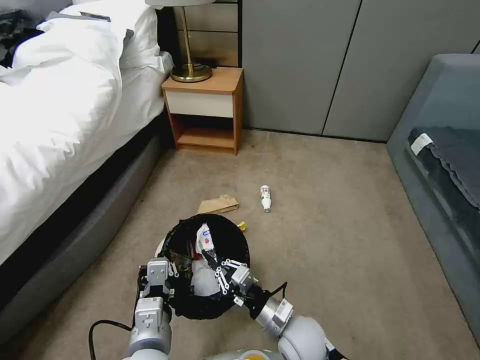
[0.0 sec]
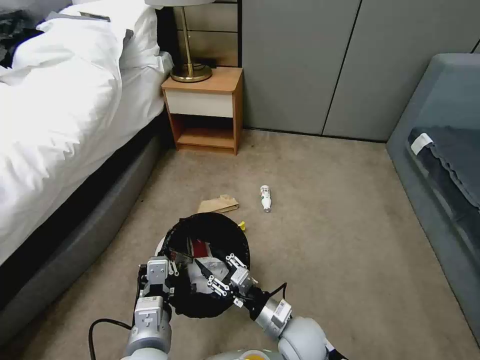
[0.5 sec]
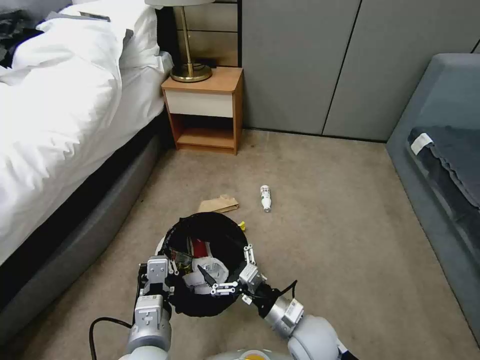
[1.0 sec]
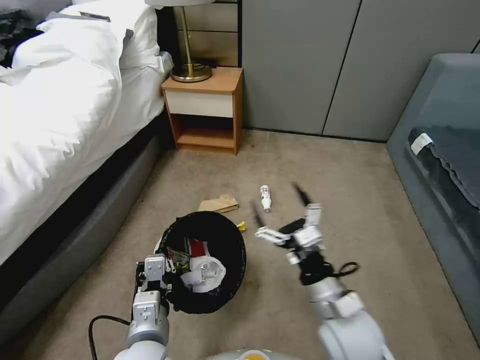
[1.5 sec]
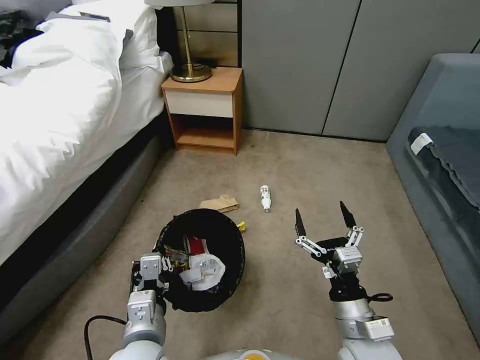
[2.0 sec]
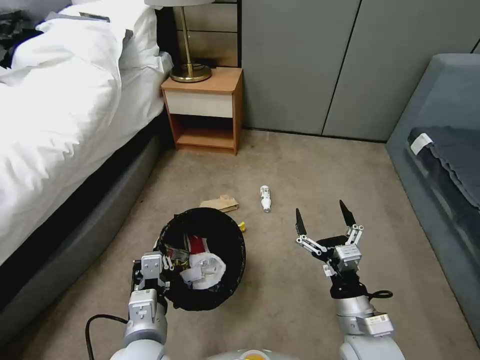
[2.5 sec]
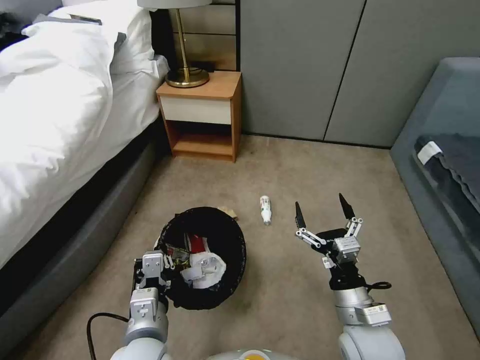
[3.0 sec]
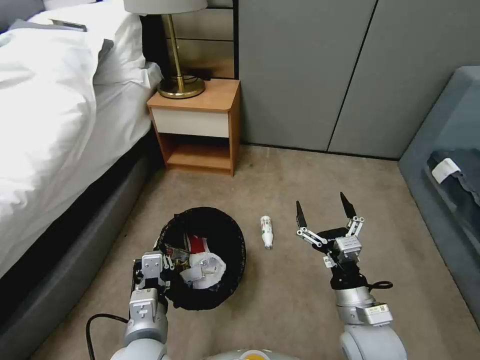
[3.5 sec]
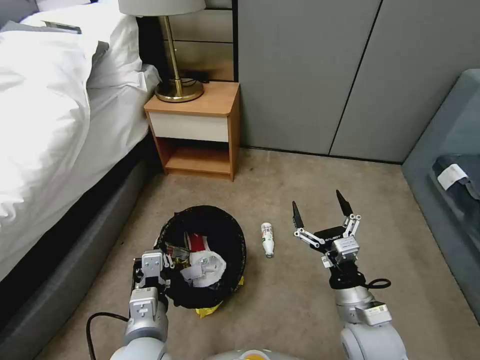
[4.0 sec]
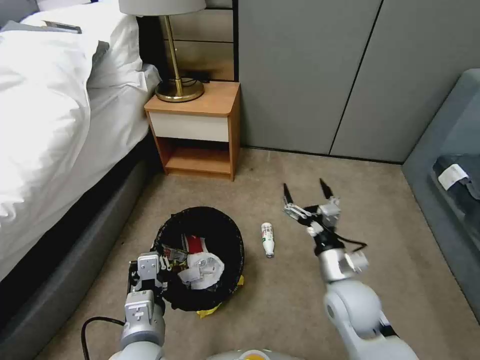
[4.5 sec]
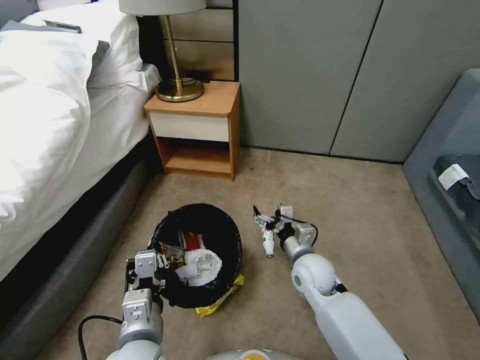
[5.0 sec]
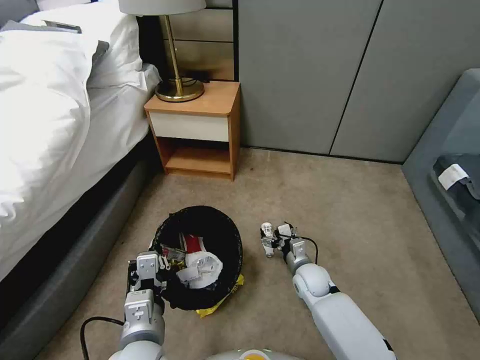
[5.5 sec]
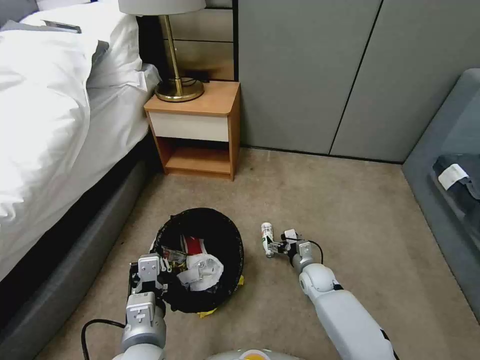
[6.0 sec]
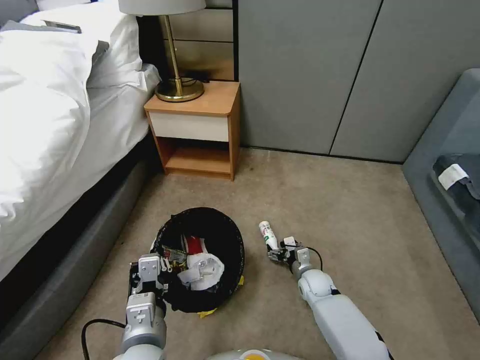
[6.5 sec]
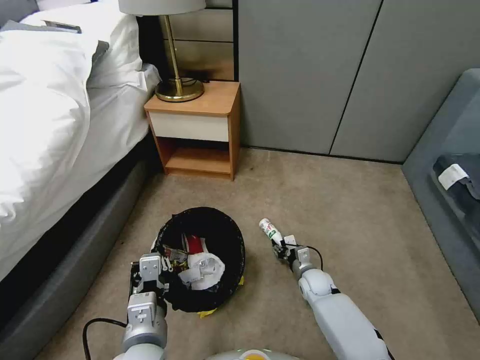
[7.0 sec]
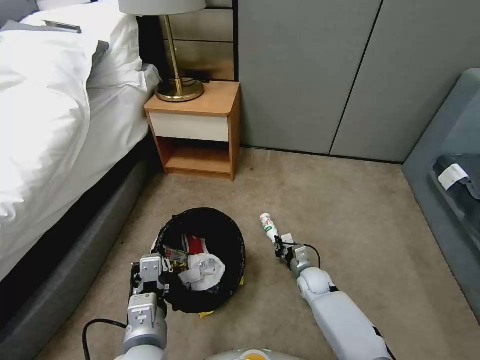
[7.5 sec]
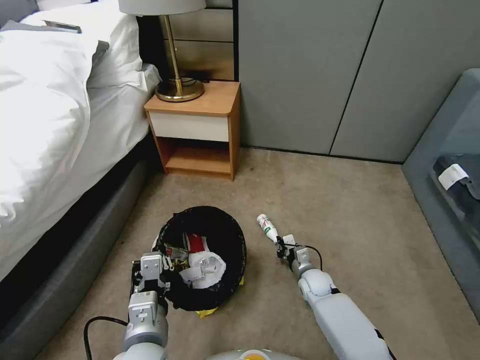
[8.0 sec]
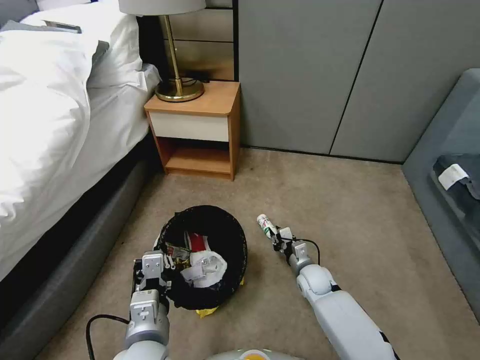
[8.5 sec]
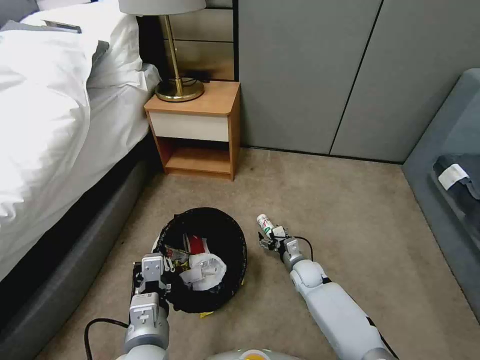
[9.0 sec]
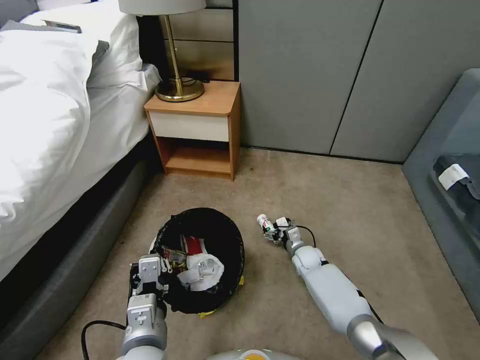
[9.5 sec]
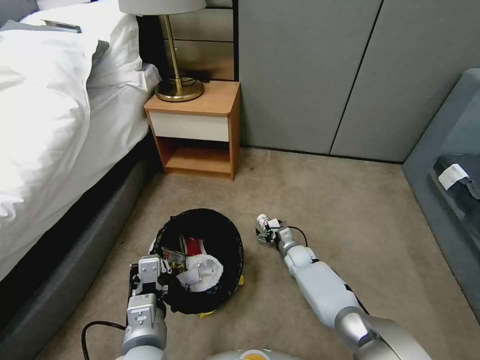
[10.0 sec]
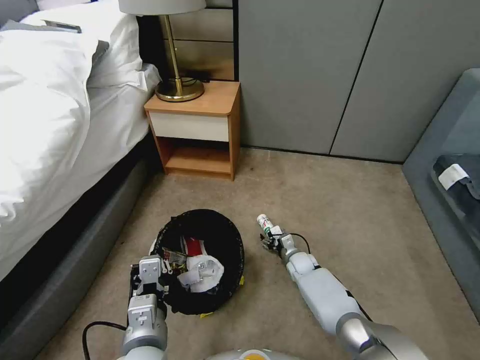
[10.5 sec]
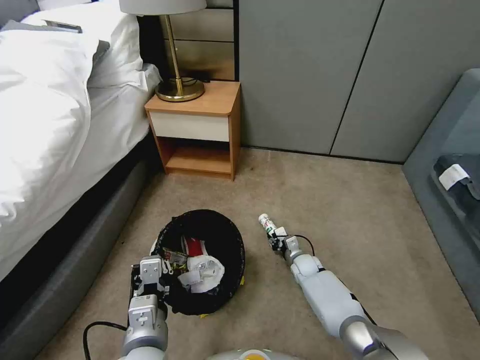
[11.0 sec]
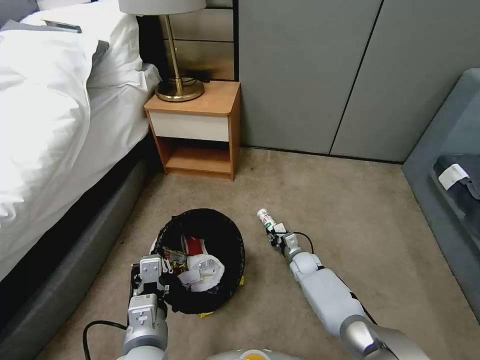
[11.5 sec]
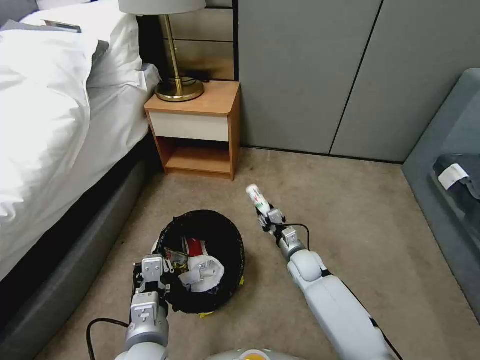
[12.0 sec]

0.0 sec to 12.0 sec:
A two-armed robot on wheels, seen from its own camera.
Task of the whole recording: Pick up the trash bin, then pick up the garbage from the floor and place it into the trash bin.
0.0 sec to 2.0 sec: The right gripper moves to the right and upward, roughly 15 cm, and opens.
4.0 sec to 6.0 sec: The right gripper moves downward and forward, approximately 25 cm.
6.0 sec to 8.0 sec: The right gripper closes its fingers.
8.0 sec to 10.0 sec: The right gripper heads forward, covering roughly 10 cm, and opens.
10.0 sec to 12.0 sec: The right gripper travels upward and backward by some 10 cm, and closes its fingers.

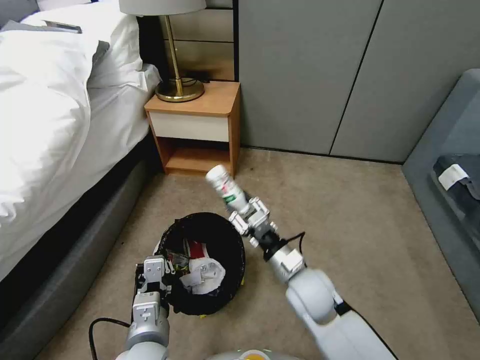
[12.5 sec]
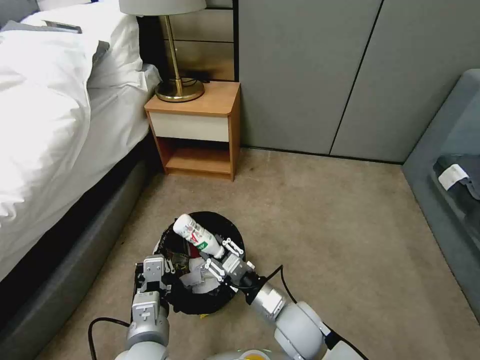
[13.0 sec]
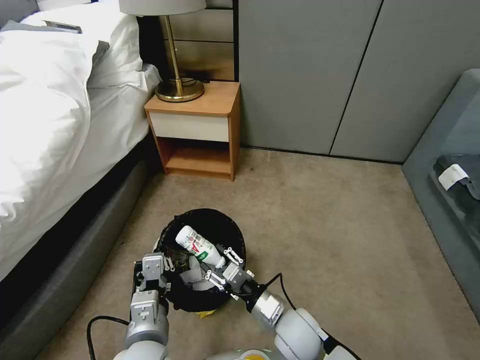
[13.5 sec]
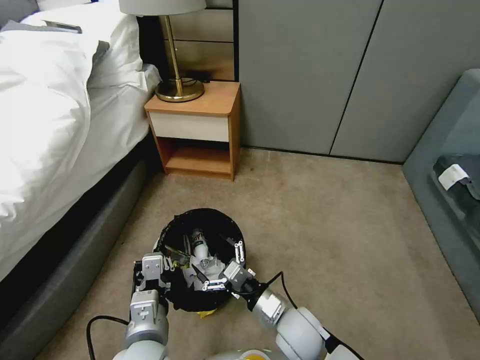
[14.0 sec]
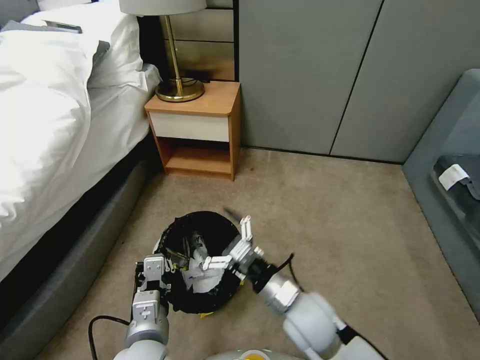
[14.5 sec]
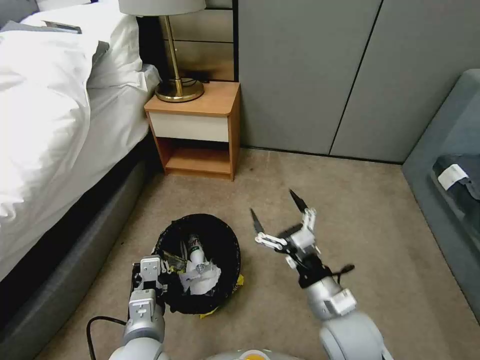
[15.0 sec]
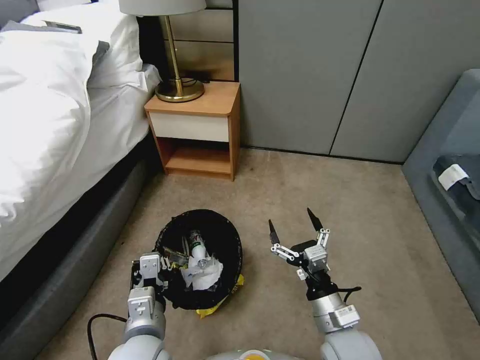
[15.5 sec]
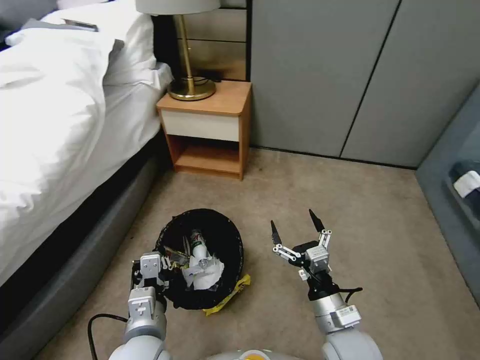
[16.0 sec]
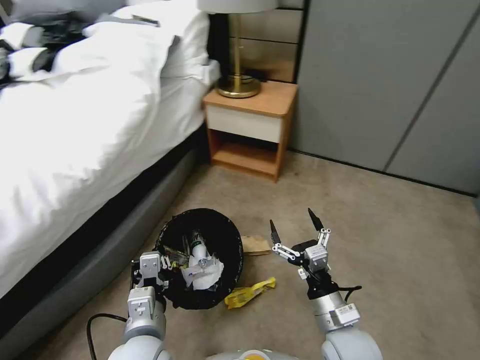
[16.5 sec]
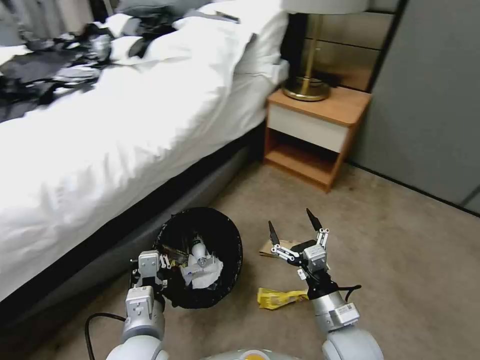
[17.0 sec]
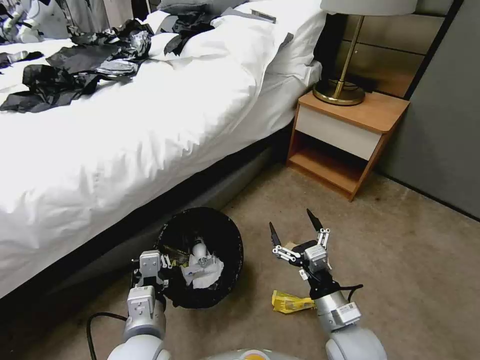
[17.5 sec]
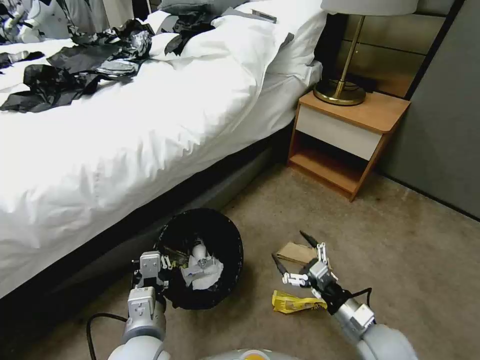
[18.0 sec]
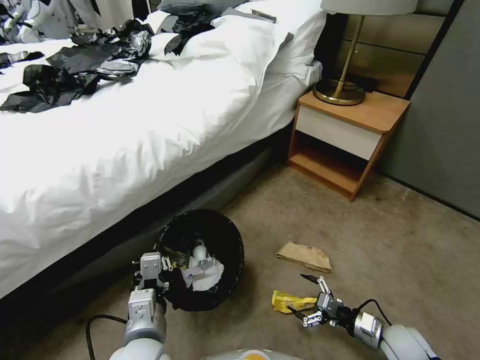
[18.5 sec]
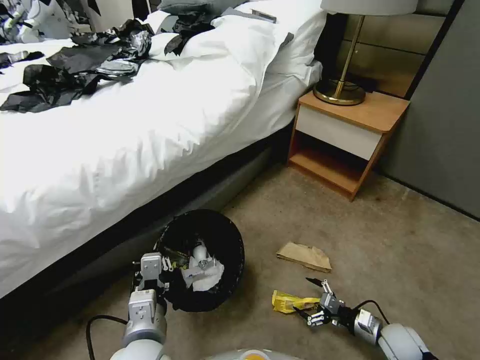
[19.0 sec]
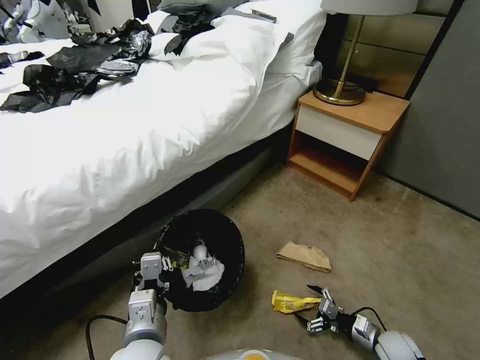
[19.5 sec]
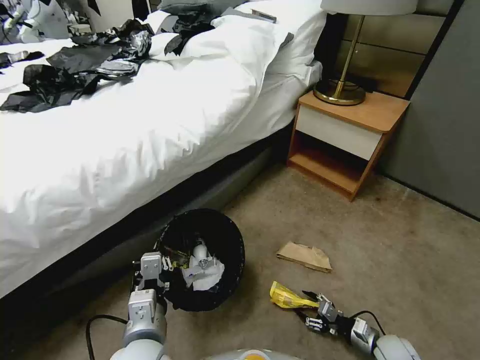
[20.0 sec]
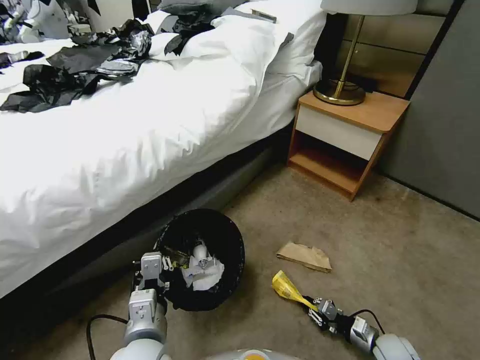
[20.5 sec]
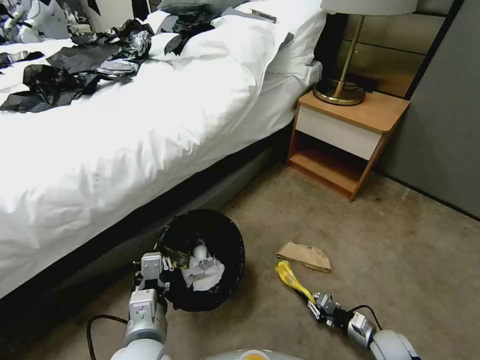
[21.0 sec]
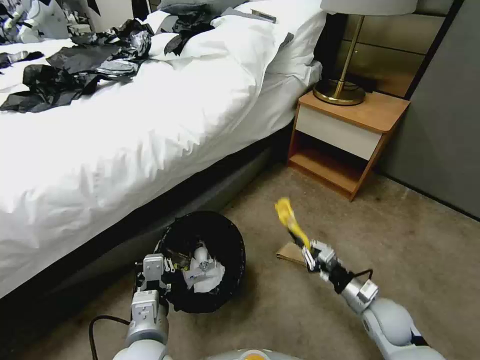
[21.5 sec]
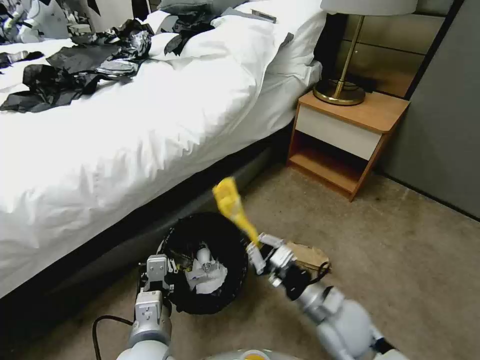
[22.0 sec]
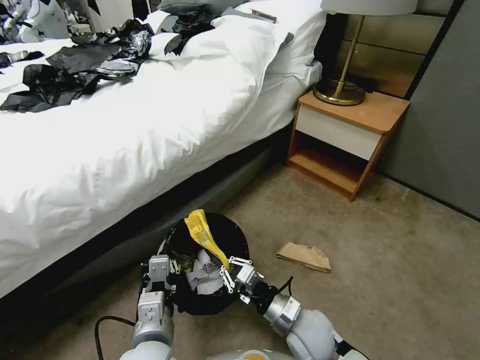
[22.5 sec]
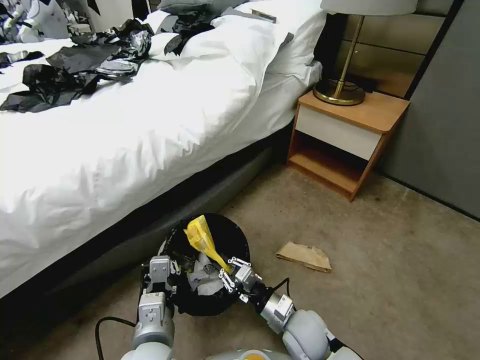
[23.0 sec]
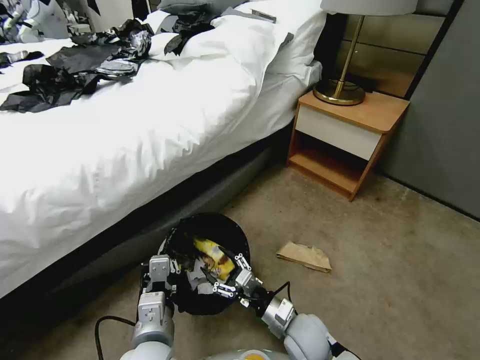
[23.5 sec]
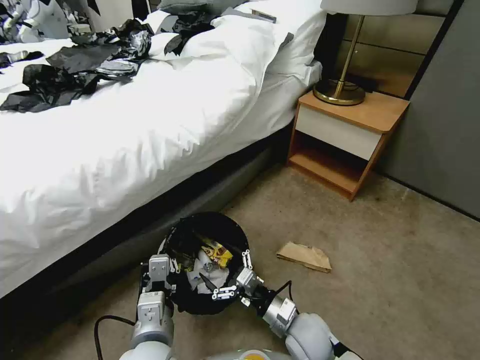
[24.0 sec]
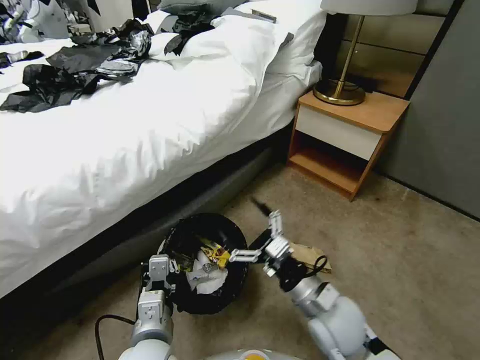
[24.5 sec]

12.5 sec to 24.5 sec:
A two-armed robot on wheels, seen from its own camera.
Task of the whole recording: Pick up the trash bin, then pick up the garbage from the floor and place it into the trash bin.
12.5 sec to 14.5 sec: The right gripper opens its fingers.
14.5 sec to 16.5 sec: The right gripper shifts approximately 10 cm to the right.
16.5 sec to 18.5 sec: The right gripper moves to the right and downward, approximately 20 cm.
18.5 sec to 20.5 sec: The right gripper shifts some 10 cm downward, and closes up.
20.5 sec to 22.5 sec: The right gripper travels to the left and upward by some 30 cm.
22.5 sec to 24.5 sec: The right gripper shifts roughly 10 cm upward, and opens its fingers.

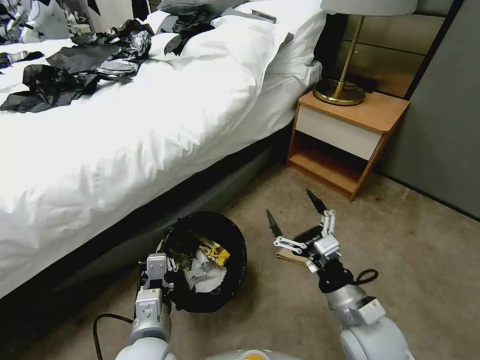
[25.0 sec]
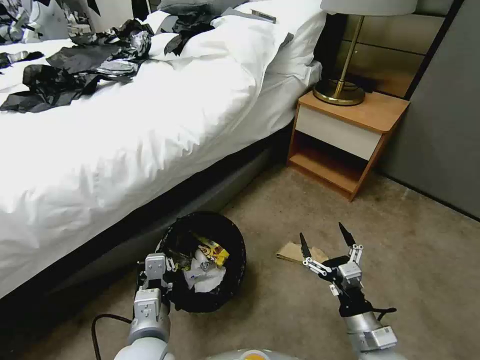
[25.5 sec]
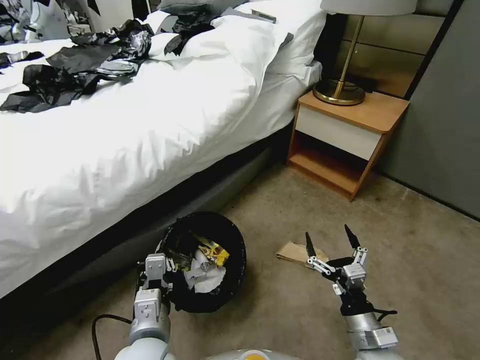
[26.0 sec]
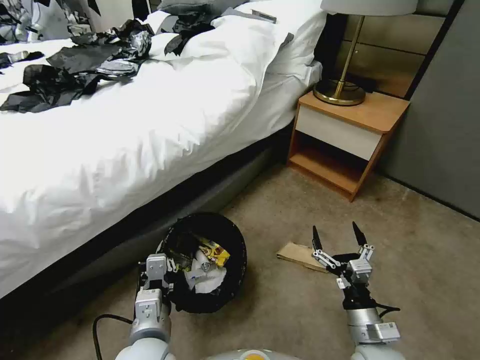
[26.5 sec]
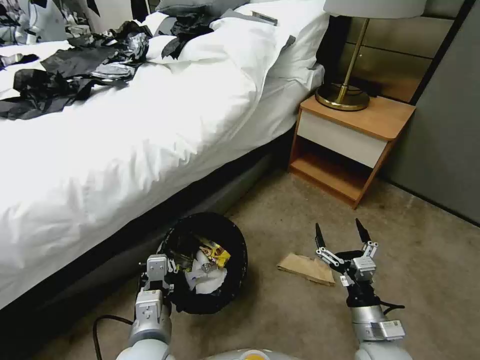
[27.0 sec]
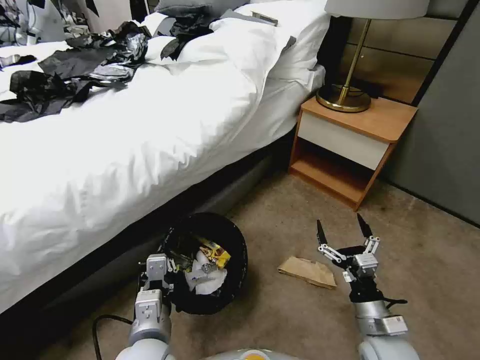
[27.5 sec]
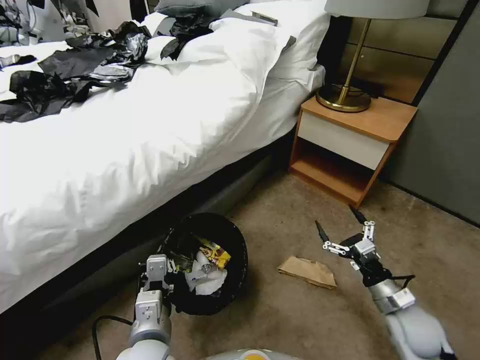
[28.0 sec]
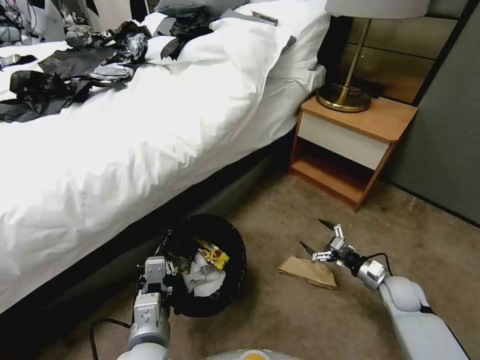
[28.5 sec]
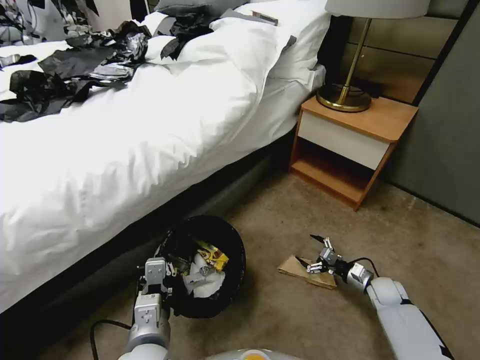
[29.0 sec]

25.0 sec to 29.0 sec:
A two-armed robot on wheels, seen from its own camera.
Task of the whole recording: Pick up the trash bin, then pick up the garbage from the floor and place it into the trash bin.
25.0 sec to 27.0 sec: The right gripper heads downward, covering some 10 cm.
27.0 sec to 29.0 sec: The right gripper heads forward, to the right and downward, covering roughly 25 cm.
